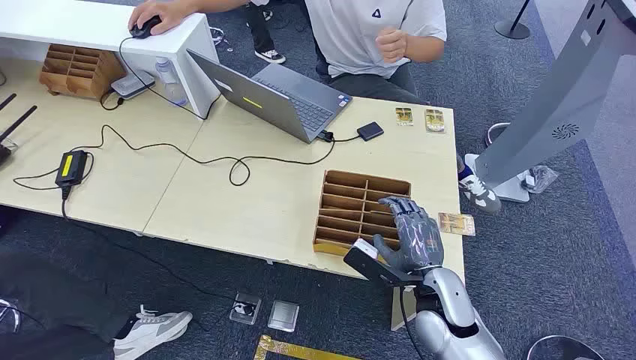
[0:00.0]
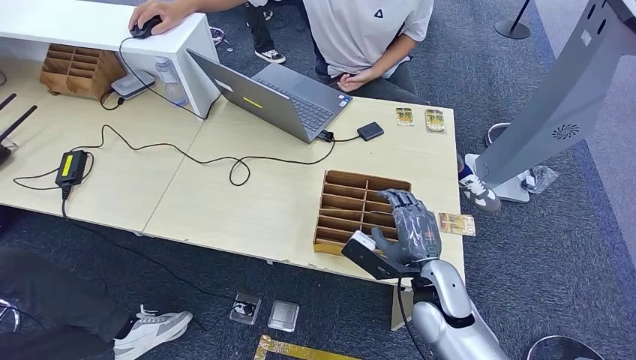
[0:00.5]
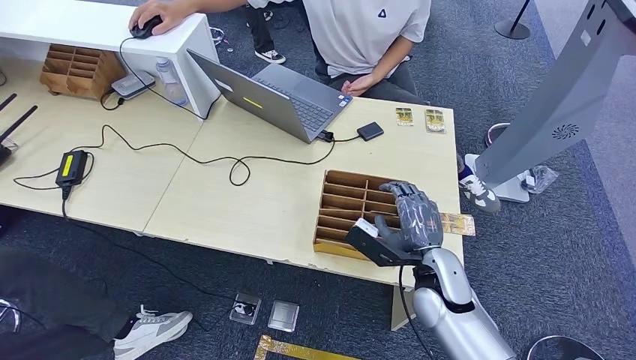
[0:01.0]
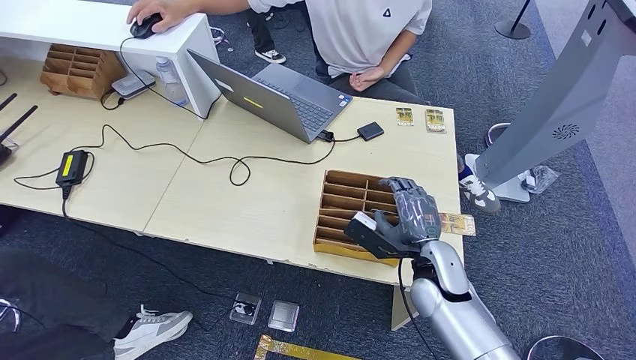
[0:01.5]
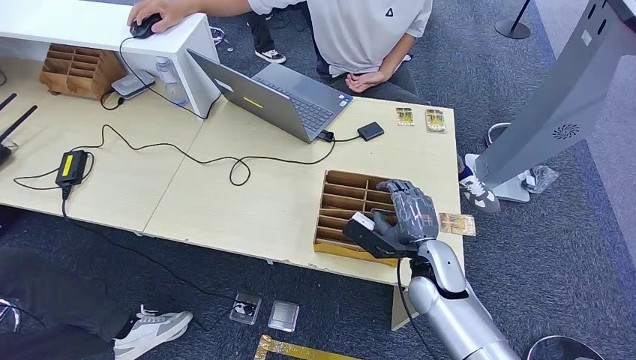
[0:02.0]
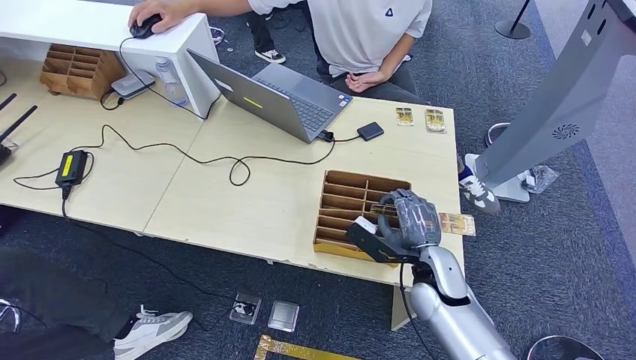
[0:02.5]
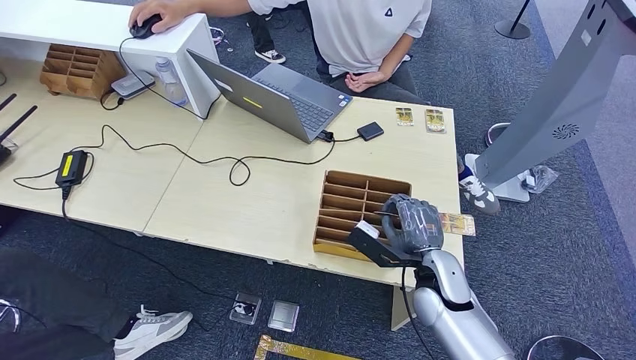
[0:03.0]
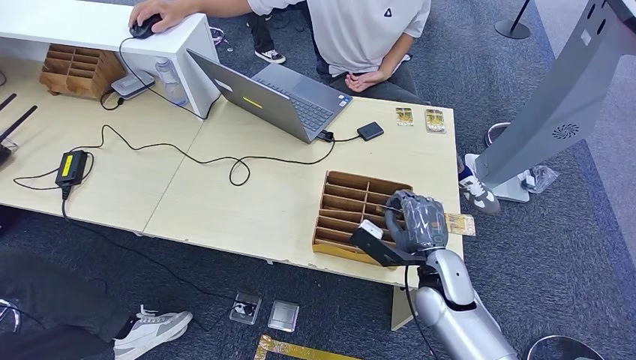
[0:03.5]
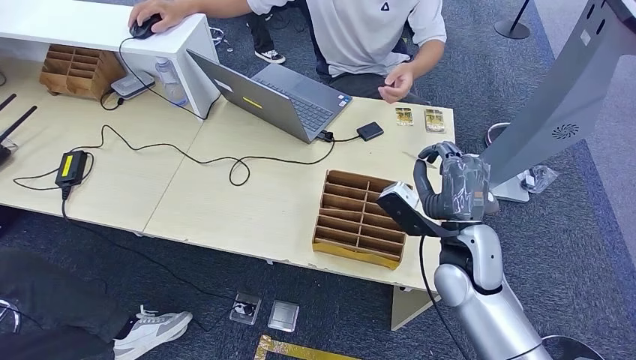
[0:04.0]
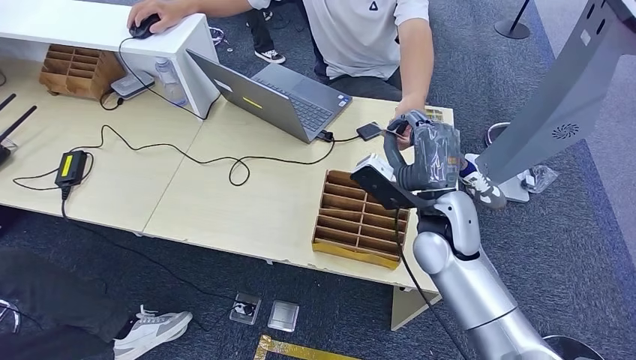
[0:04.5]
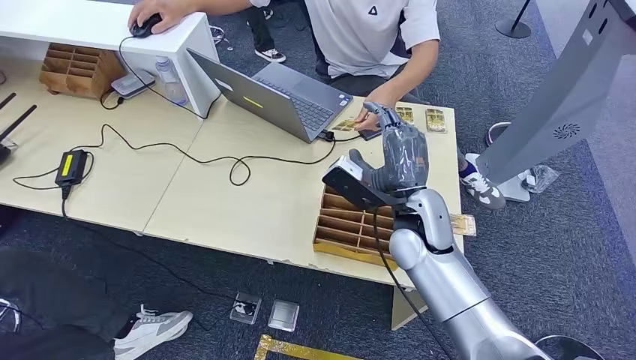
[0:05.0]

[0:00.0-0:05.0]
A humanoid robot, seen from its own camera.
Step, 0:00.0 to 0:03.5: Pick up the room card from the card holder.
Step, 0:04.0 to 0:04.5: Hand the room card to the target.
0:02.5 to 0:05.0: The right hand goes some 10 cm upward and to the left.

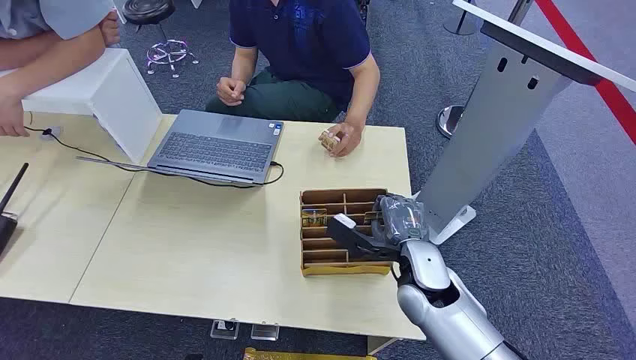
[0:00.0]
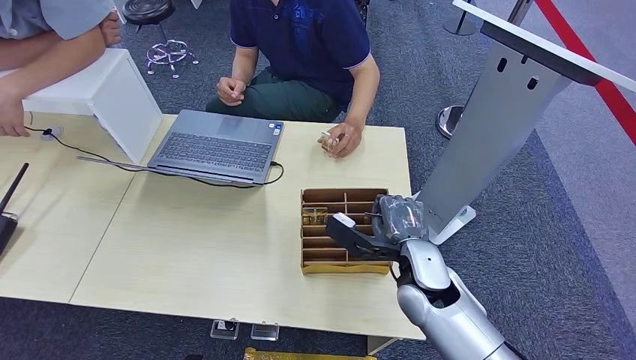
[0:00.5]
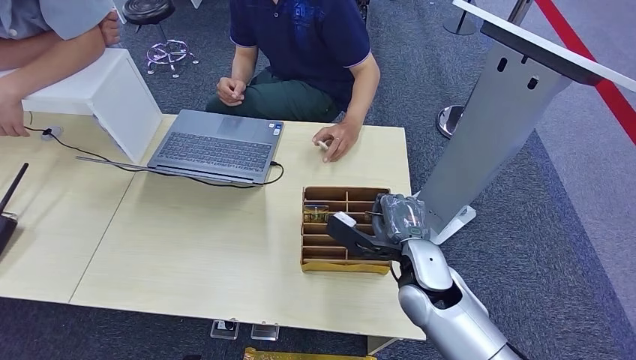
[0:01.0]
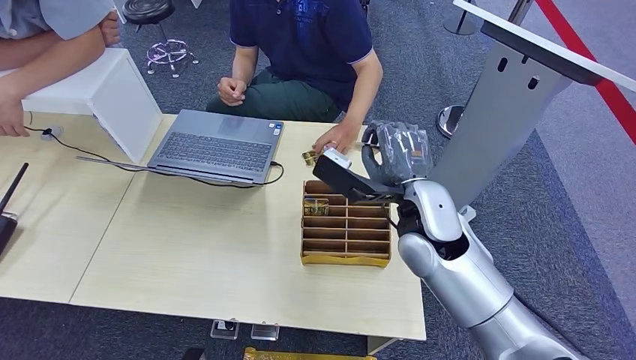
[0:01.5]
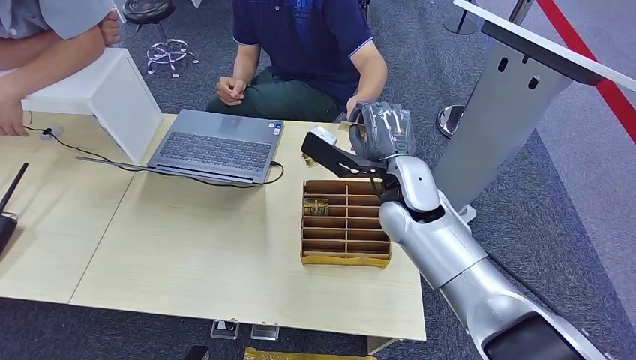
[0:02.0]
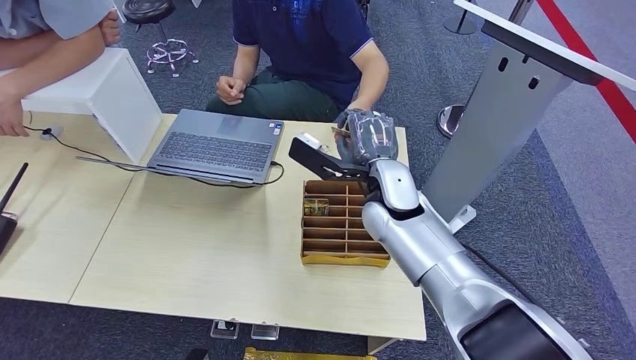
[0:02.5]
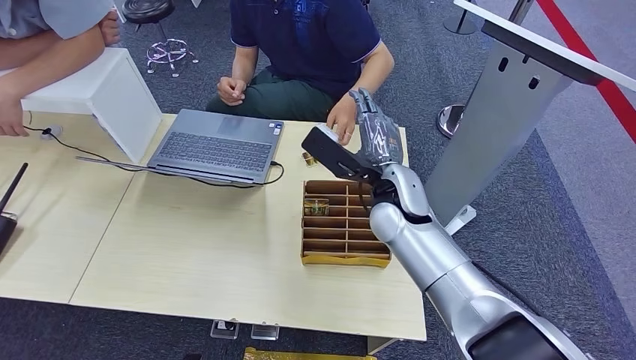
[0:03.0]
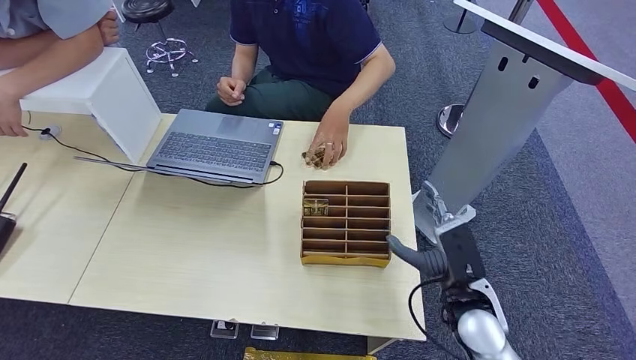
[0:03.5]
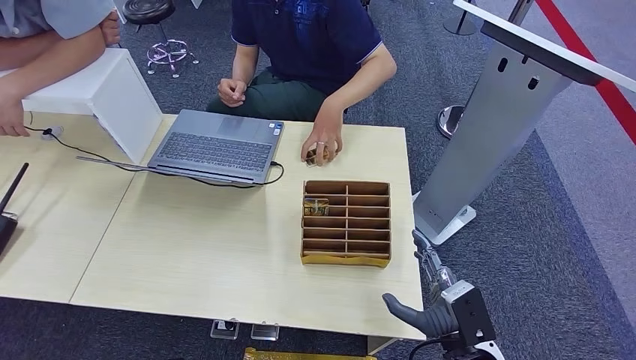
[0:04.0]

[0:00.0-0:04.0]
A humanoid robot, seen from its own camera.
Step, 0:00.0 to 0:01.5: Pick up the room card from the card holder.
Step, 0:02.0 to 0:04.0: Hand the room card to the target.
0:02.0 to 0:04.0: The right hand travels backward, downward and to the right by roughly 30 cm.
